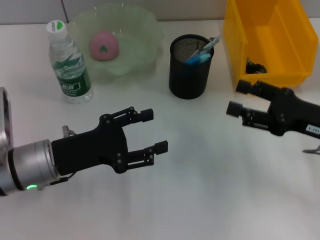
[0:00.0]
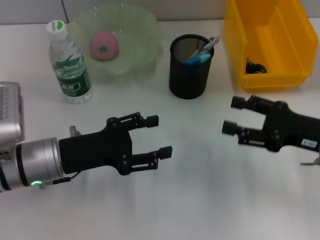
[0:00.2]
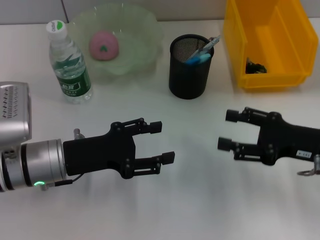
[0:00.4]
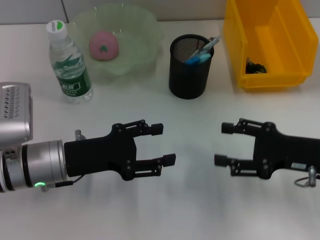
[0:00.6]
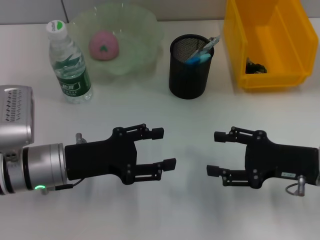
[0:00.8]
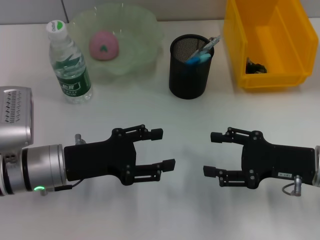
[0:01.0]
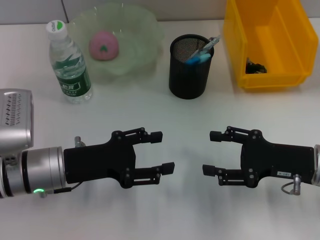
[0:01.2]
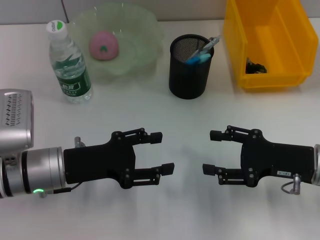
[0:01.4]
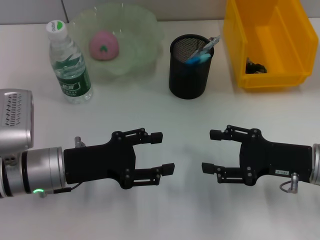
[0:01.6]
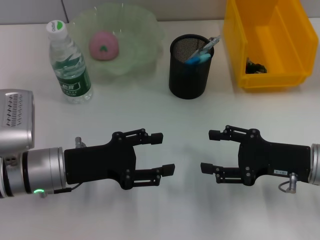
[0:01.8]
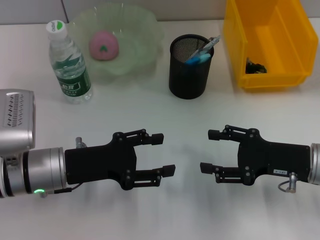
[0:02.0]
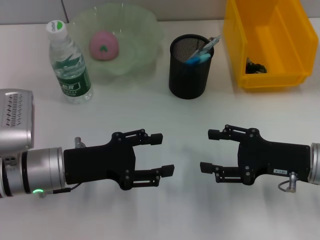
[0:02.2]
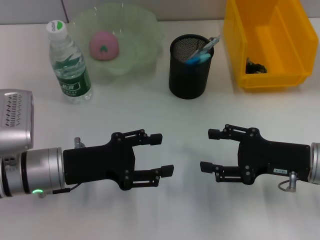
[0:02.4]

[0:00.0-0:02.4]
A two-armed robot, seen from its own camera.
0:01.2 to 0:02.4: The two grippers keep their place.

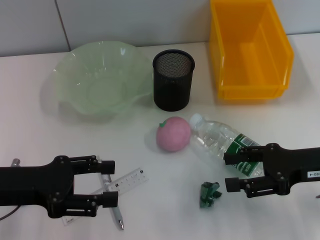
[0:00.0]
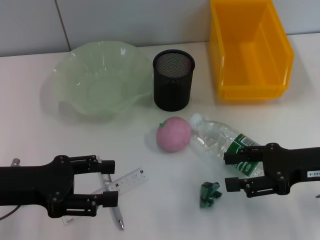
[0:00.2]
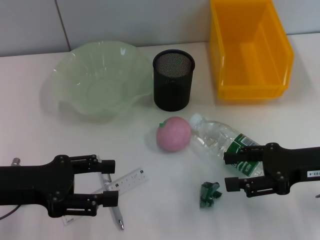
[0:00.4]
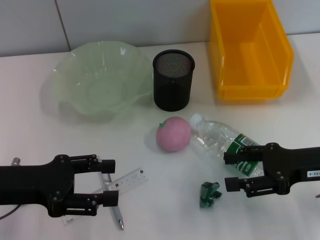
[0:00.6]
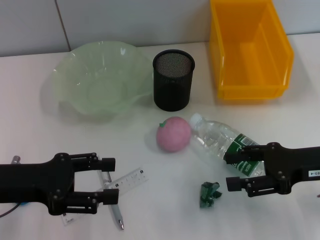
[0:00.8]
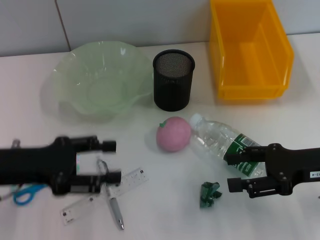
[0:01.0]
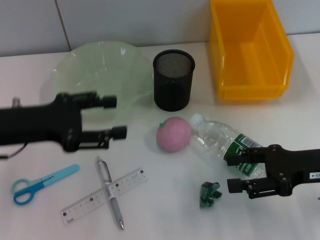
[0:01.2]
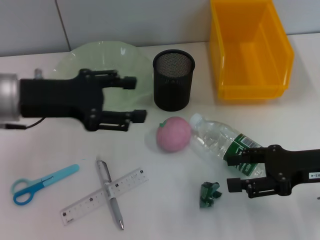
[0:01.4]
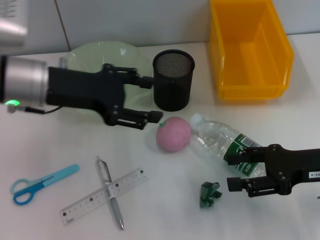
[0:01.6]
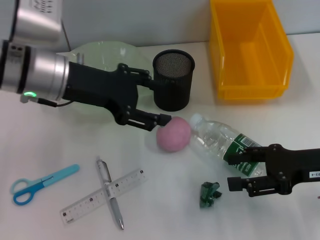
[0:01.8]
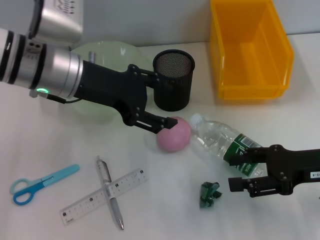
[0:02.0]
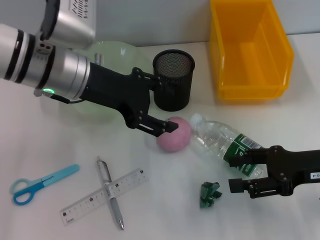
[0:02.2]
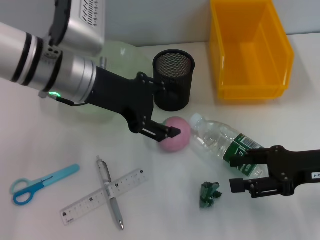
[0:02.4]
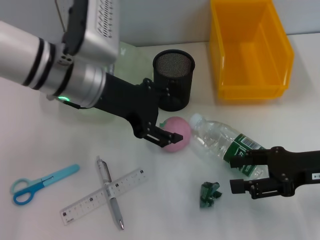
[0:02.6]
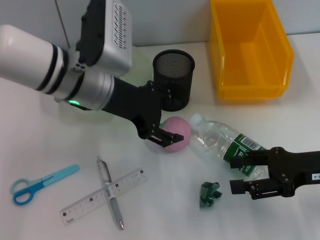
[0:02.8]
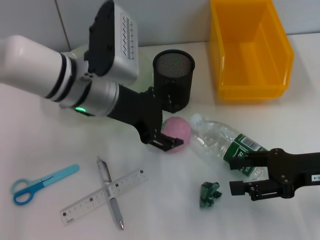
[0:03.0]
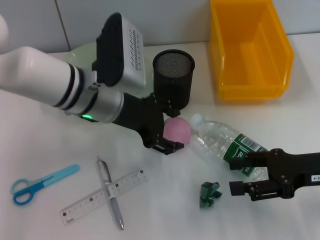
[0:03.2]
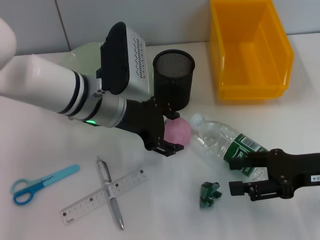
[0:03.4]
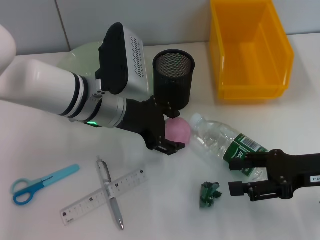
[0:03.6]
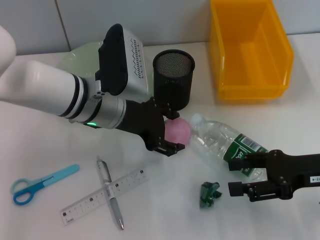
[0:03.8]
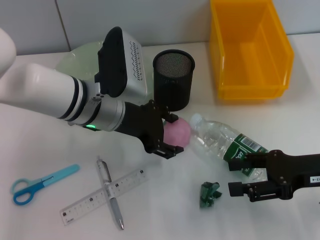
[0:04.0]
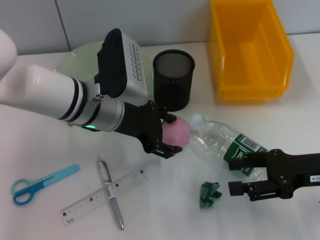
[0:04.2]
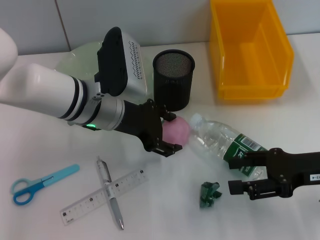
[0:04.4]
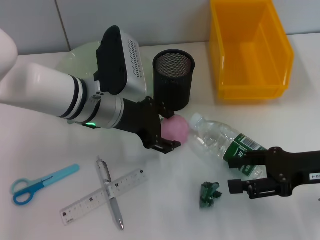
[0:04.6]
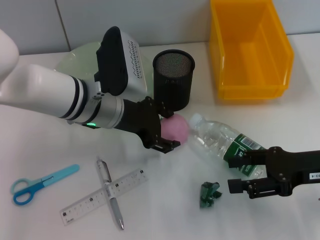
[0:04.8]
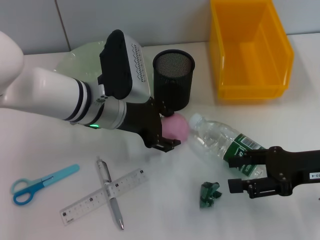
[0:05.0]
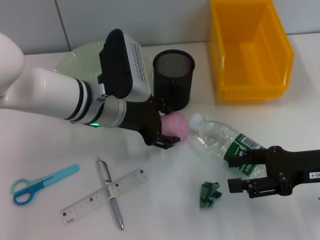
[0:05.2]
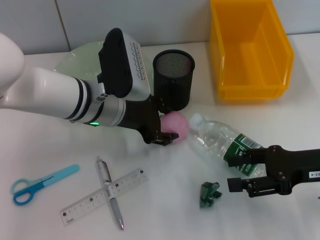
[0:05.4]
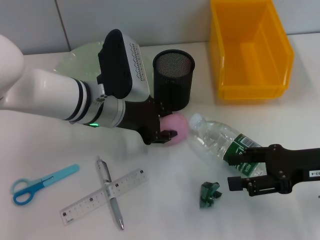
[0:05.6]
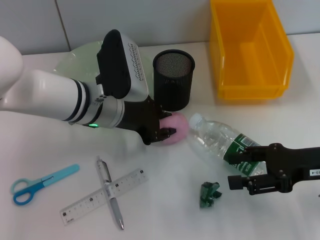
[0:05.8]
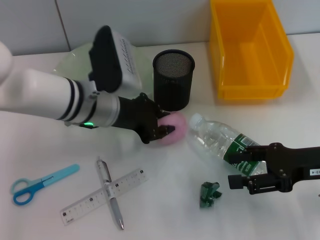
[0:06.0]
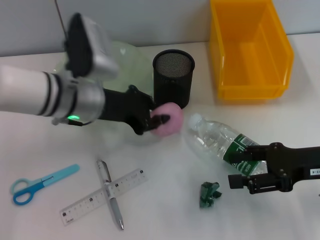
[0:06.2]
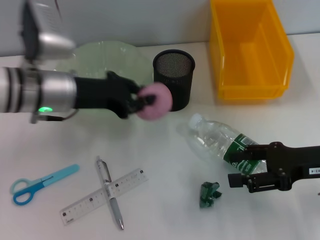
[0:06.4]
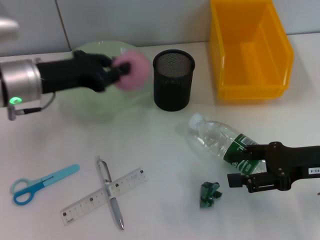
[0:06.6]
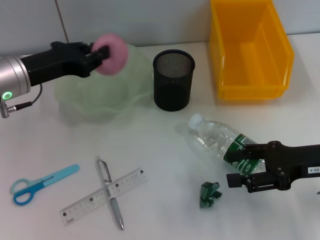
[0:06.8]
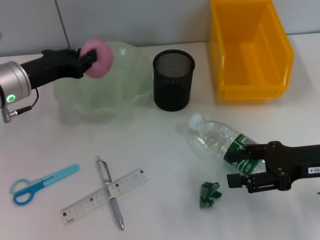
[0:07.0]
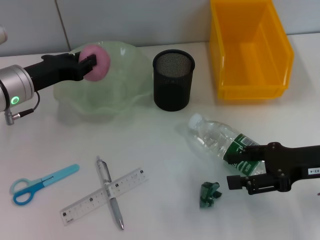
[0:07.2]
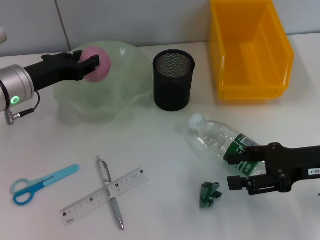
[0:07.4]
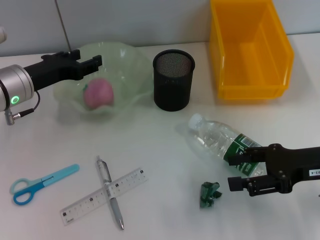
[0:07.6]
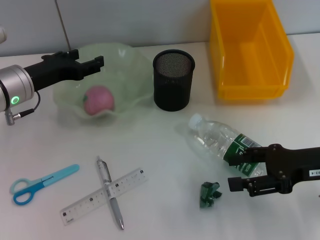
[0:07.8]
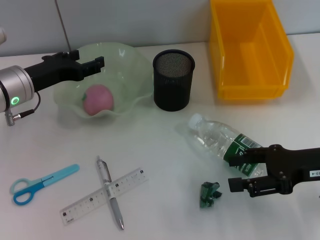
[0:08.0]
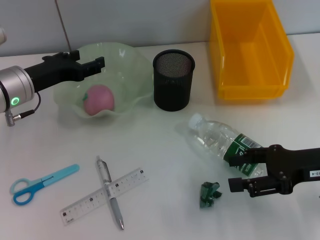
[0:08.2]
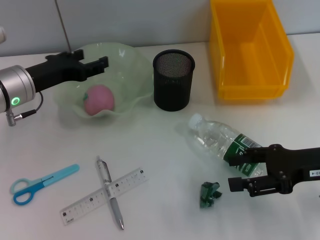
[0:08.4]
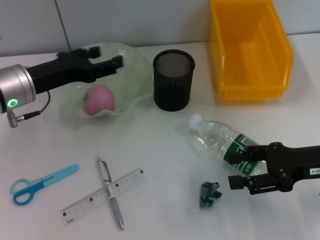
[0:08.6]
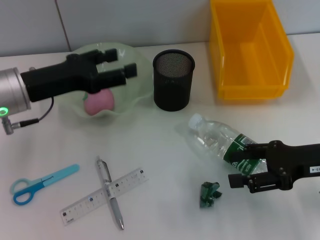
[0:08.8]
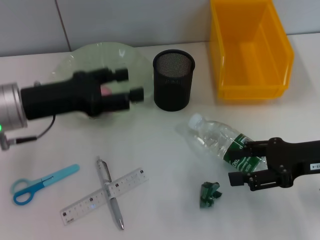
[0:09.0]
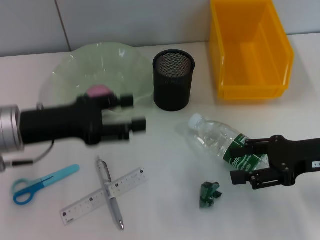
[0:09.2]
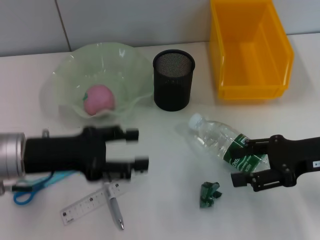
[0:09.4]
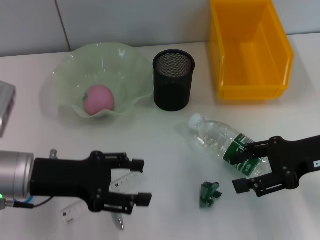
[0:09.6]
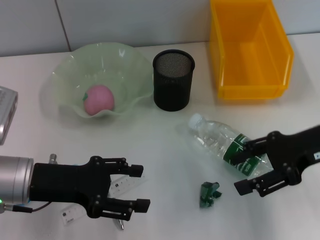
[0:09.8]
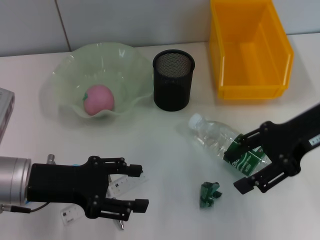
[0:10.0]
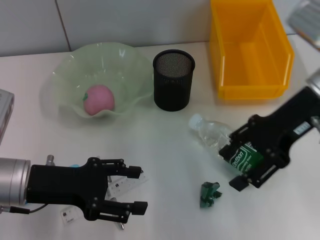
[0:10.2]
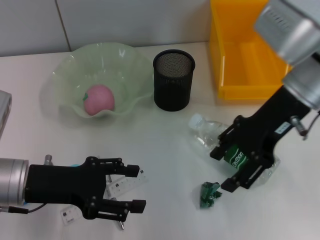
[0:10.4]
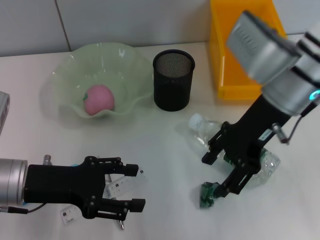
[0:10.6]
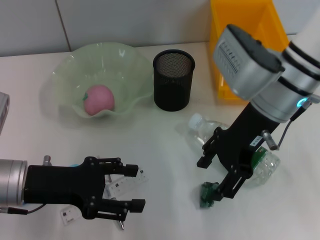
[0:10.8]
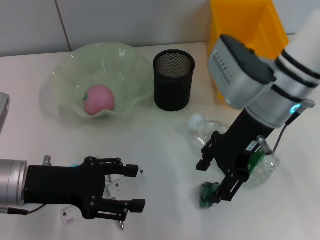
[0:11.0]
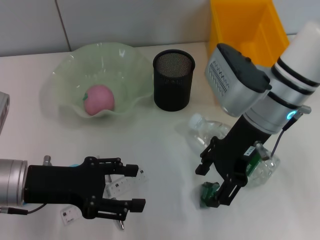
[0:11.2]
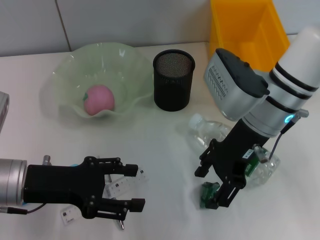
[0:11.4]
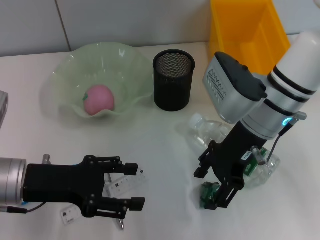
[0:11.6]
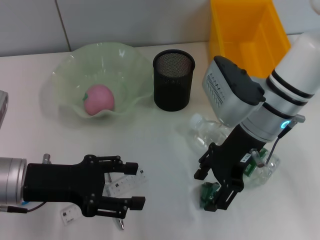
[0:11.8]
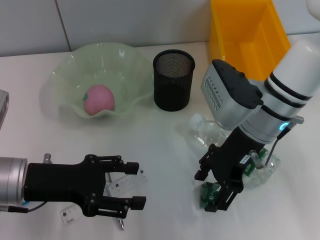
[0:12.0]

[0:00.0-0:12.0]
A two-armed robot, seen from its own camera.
Step, 0:00.0 to 0:05.8: Grab the peach with the left hand.
Step, 0:06.0 to 0:07.8: Place the peach into the fruit bowl with the left hand.
0:00.0 to 0:01.6: The left gripper goes some 15 cm forward, to the right and upward.
0:01.6 to 0:03.0: The left gripper travels to the right by some 10 cm.
0:03.0 to 0:04.4: There are only small adjustments of the grippers.
0:04.4 to 0:06.0: The left gripper closes its fingers.
0:06.0 to 0:07.6: The left gripper shifts roughly 15 cm to the left.
0:07.6 to 0:09.0: The left gripper shifts approximately 5 cm backward, and opens.
0:09.0 to 0:10.4: The left gripper shifts about 5 cm backward, while the right gripper heads to the left, upward and forward, covering roughly 15 cm.
0:10.4 to 0:12.0: The right gripper moves downward, about 5 cm.

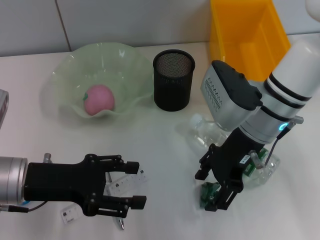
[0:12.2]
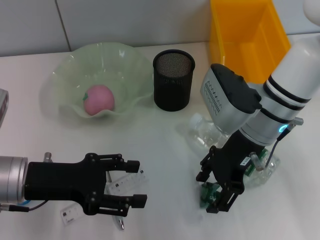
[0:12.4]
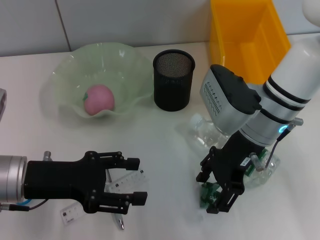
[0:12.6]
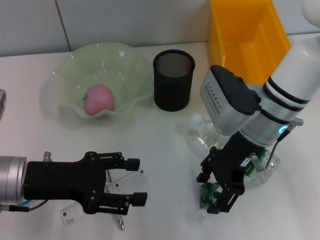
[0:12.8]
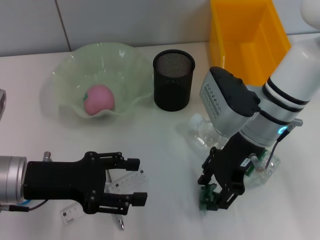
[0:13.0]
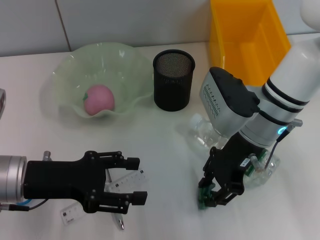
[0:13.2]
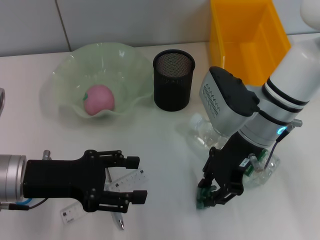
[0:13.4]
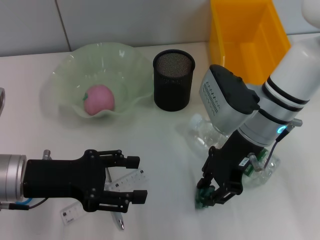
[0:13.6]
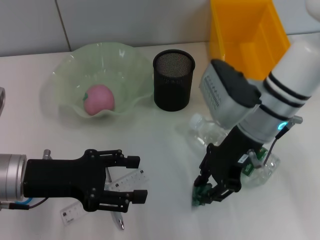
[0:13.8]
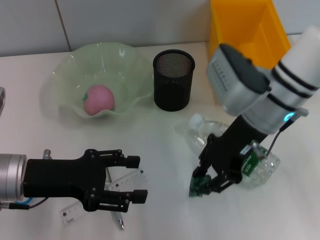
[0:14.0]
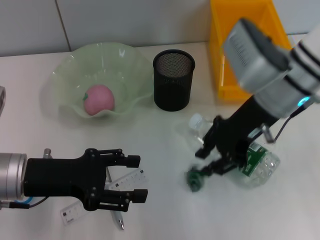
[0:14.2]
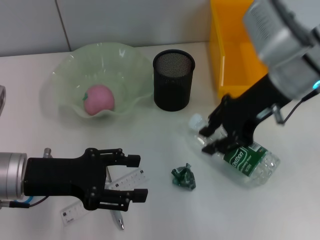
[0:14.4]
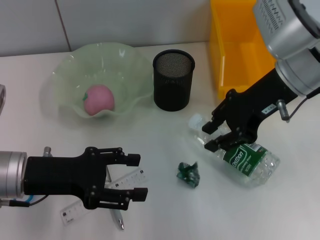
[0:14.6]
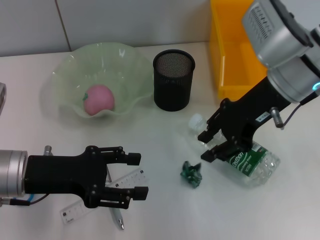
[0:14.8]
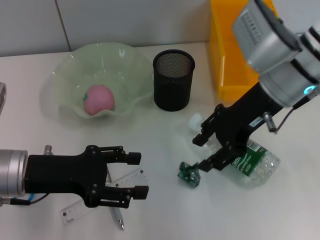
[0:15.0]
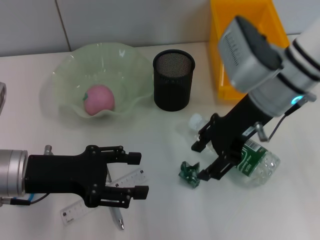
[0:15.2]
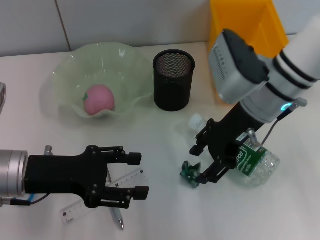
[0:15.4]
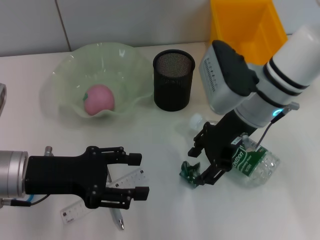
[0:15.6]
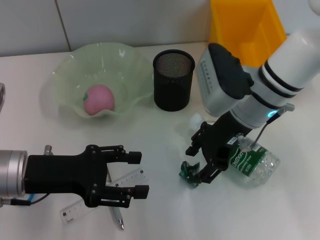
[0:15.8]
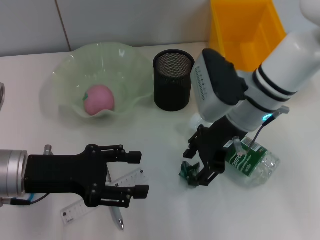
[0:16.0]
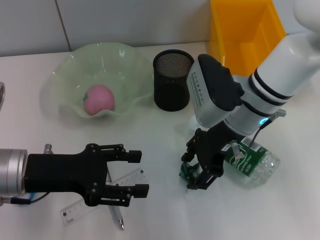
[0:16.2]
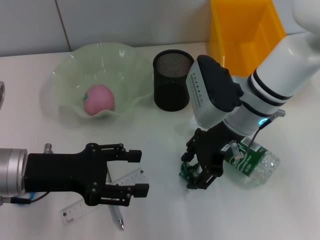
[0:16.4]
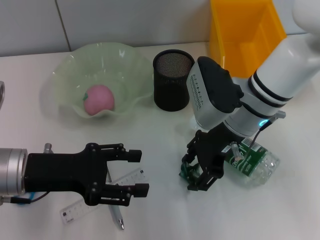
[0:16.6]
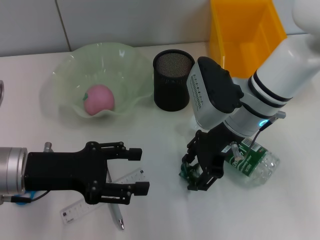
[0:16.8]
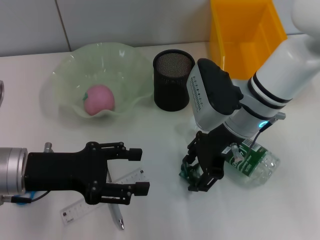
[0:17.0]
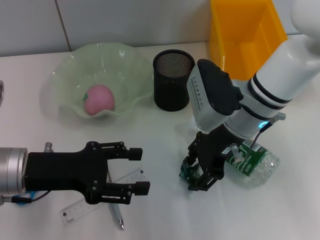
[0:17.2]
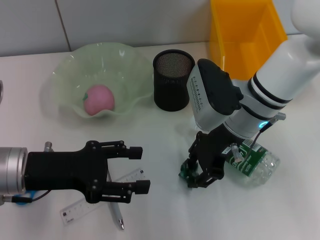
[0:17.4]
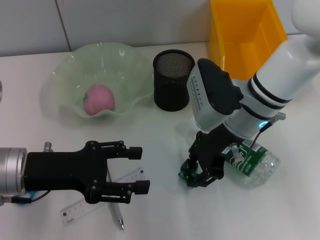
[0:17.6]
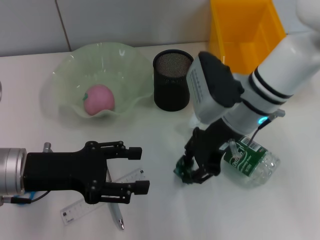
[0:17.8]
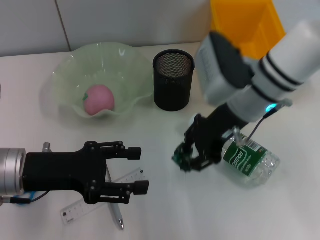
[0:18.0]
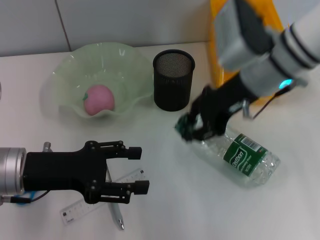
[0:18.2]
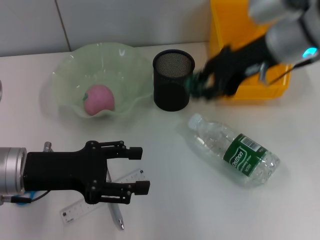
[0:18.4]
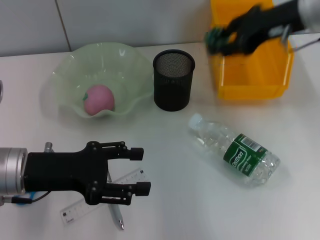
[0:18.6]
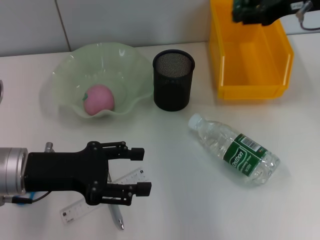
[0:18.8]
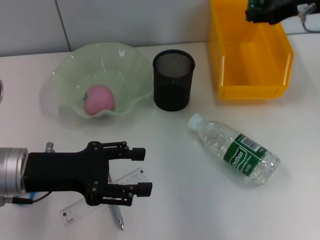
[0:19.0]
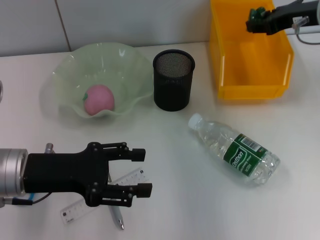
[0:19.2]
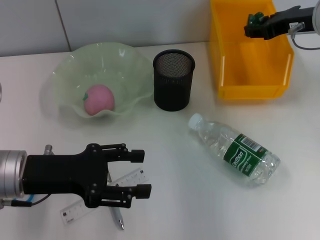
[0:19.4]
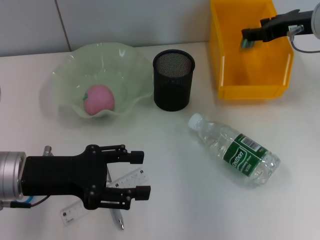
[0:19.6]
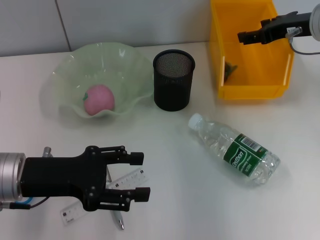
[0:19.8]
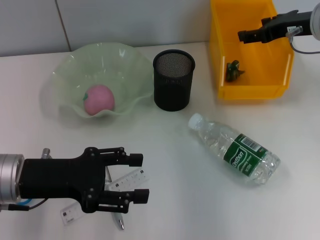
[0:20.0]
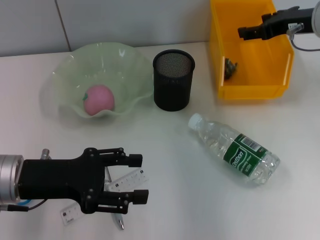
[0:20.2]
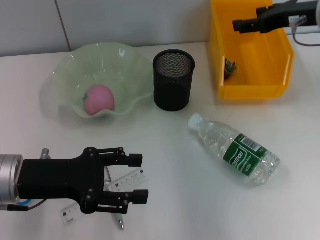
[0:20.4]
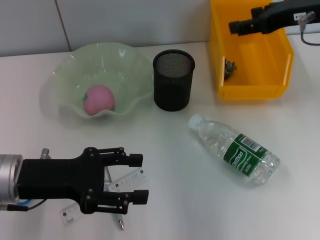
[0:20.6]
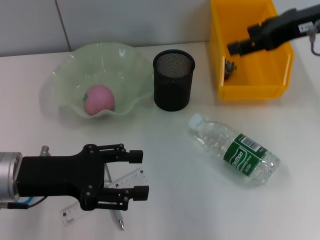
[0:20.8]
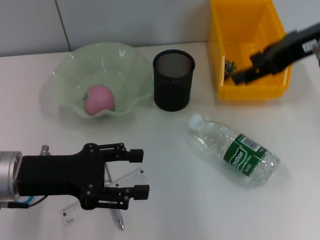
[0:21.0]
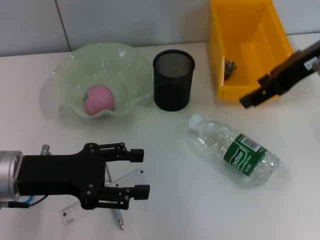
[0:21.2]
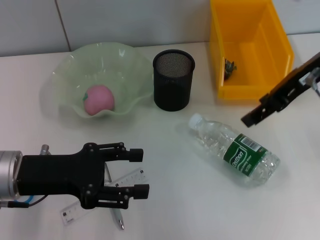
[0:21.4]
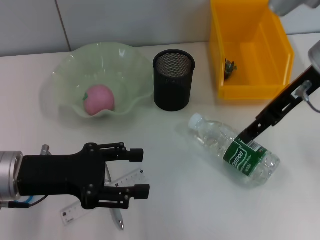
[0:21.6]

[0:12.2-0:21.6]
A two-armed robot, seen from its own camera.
Step, 0:12.2 to 0:17.4: Grab the plastic with the right hand.
Step, 0:17.8 to 0:19.8: Place the plastic into the trash can with the right hand.
0:12.2 to 0:13.8: The right gripper closes up.
0:13.8 to 0:15.4: The right gripper opens up.
0:15.4 to 0:17.0: There are only small adjustments of the grippers.
0:17.0 to 0:18.4: The right gripper goes roughly 10 cm upward and to the right.
0:18.4 to 0:20.0: The right gripper heads to the right, covering about 10 cm.
0:20.0 to 0:21.6: The right gripper travels backward and to the left by about 10 cm.
